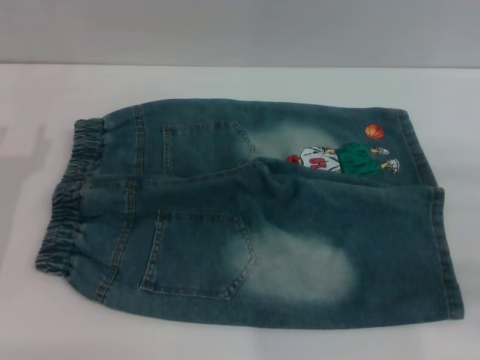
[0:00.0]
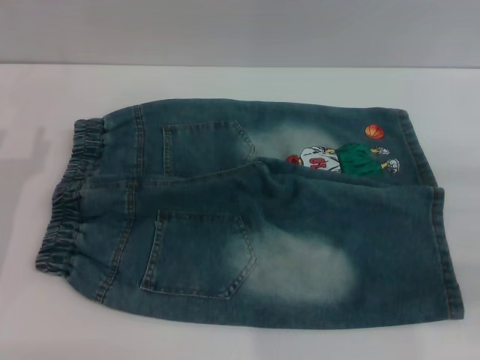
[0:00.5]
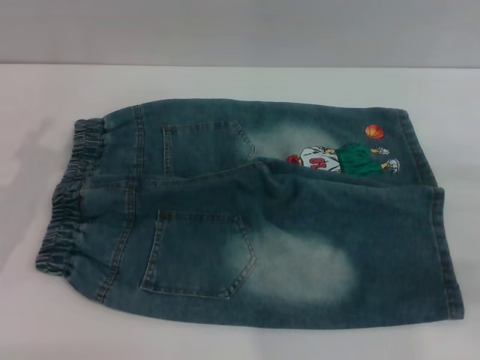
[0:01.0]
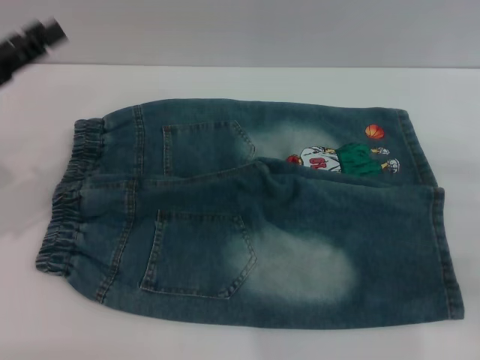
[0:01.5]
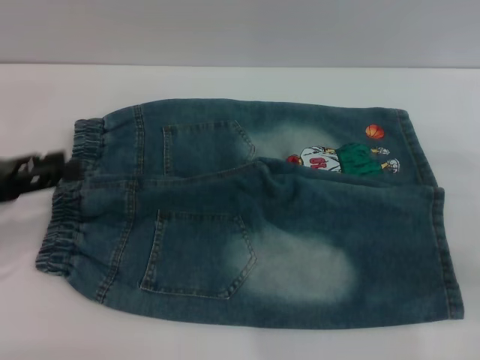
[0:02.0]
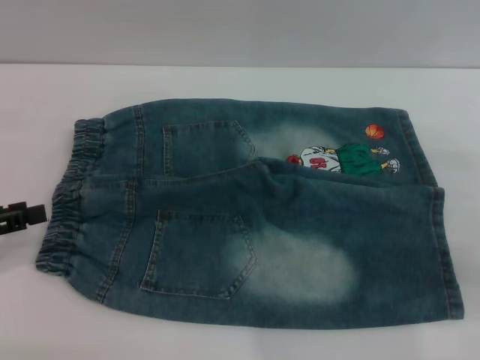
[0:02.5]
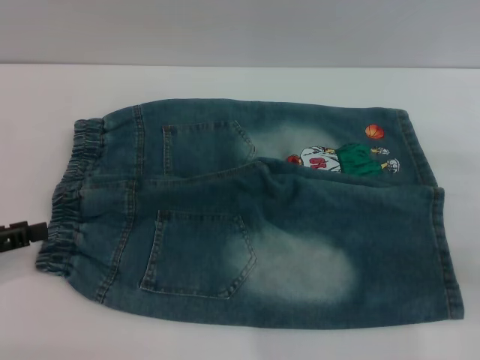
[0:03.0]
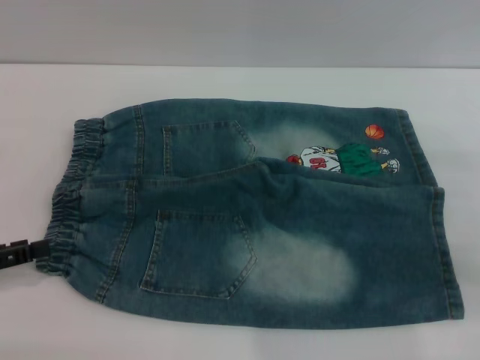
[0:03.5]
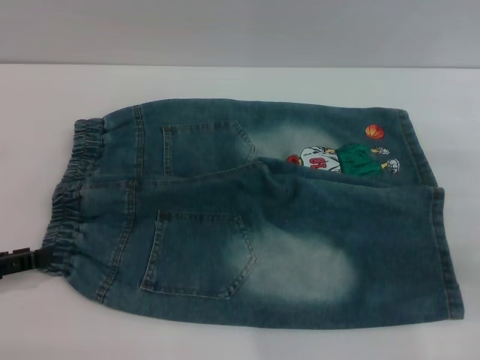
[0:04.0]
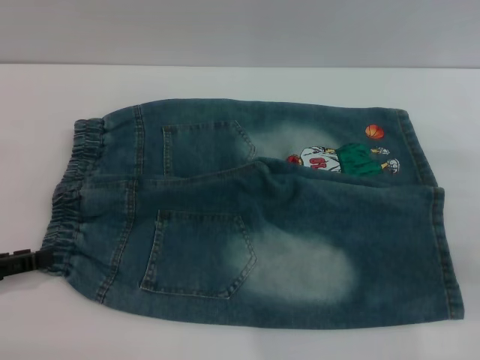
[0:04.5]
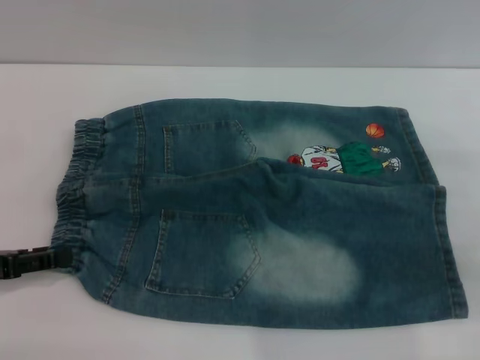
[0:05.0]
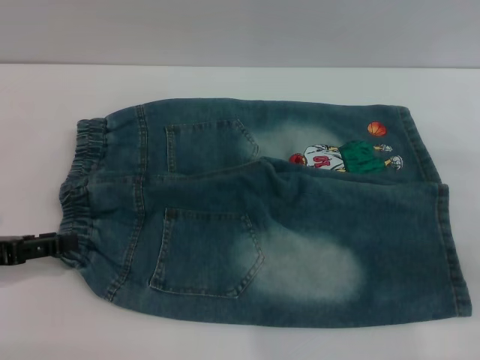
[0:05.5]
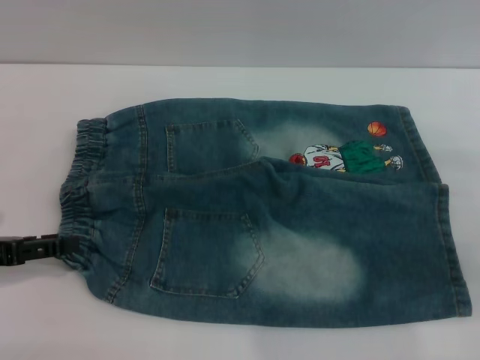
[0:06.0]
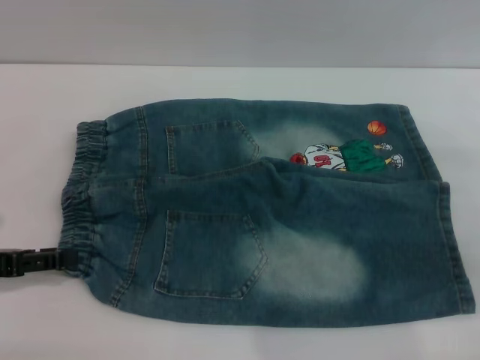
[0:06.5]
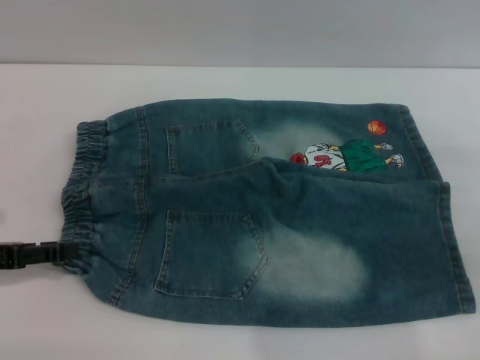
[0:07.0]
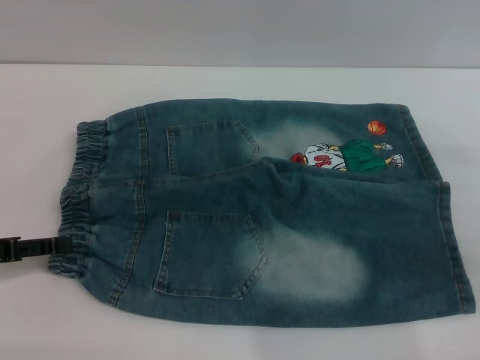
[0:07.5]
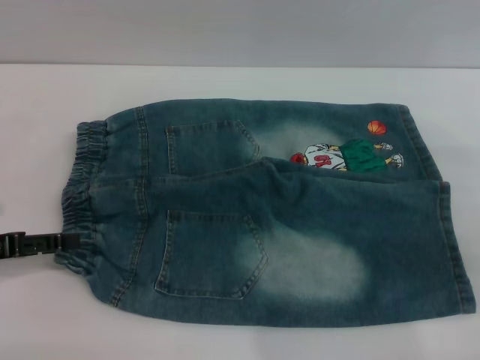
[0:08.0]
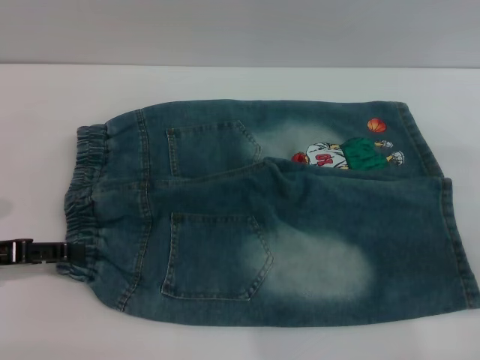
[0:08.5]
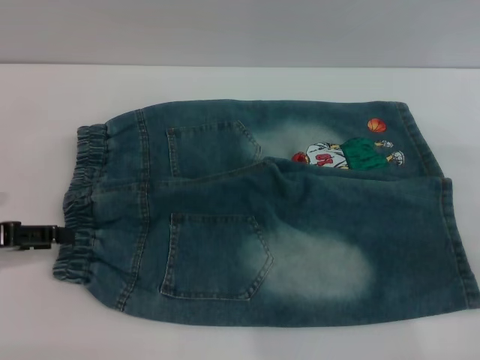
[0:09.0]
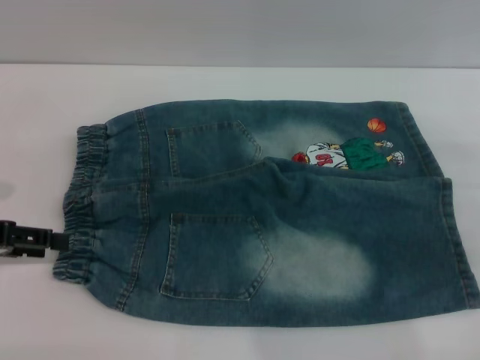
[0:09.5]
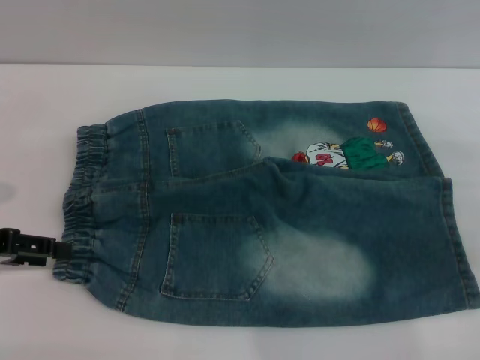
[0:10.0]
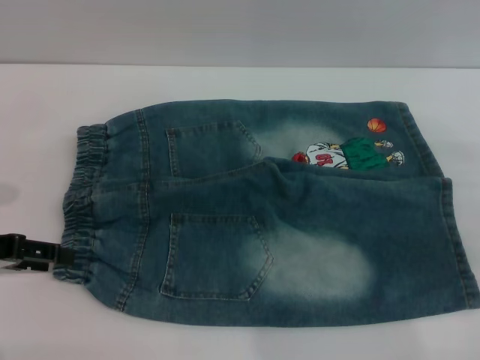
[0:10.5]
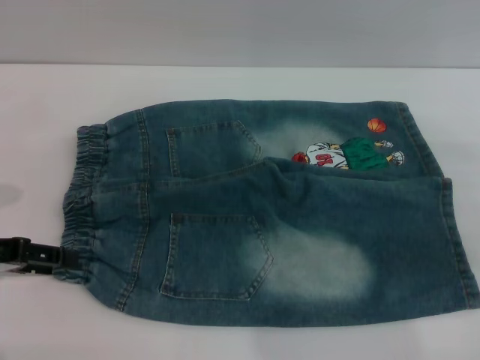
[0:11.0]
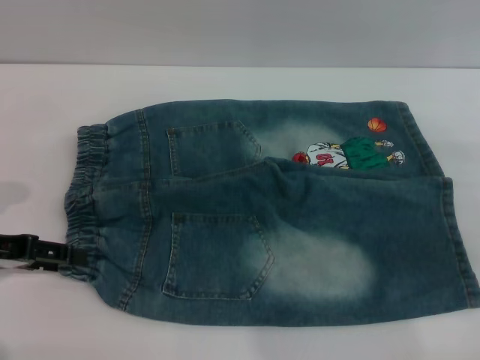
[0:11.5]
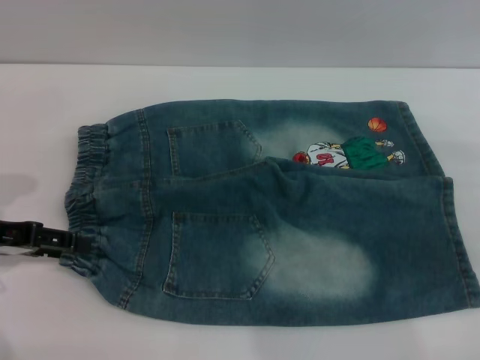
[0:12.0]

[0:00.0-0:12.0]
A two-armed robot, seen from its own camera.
0:00.0 to 0:02.0: The left gripper shifts by roughly 5 cm.
0:02.0 to 0:04.0: The left gripper is displaced downward by approximately 5 cm.
0:04.0 to 0:08.0: There are only small adjustments of the grippers.
0:08.0 to 0:12.0: The grippers stay close to where they were, moving slightly.

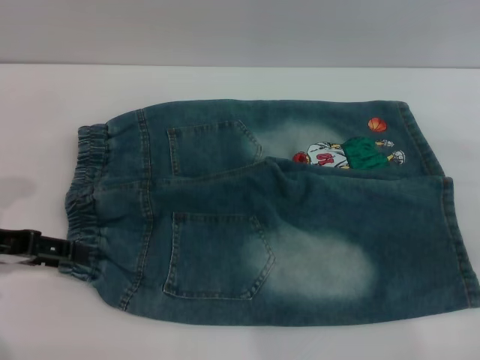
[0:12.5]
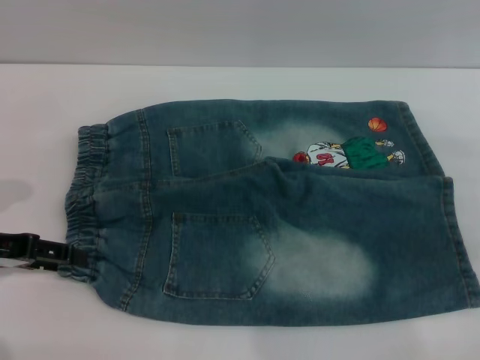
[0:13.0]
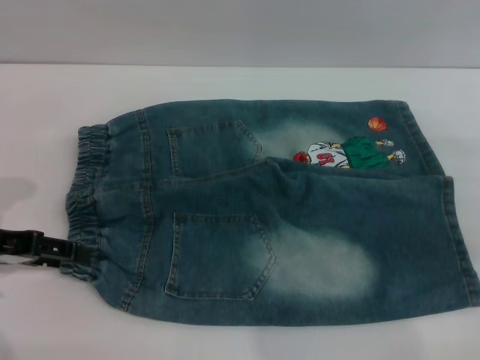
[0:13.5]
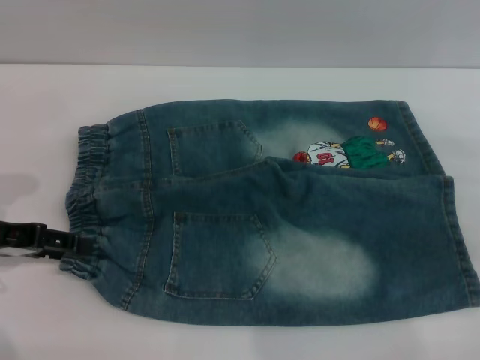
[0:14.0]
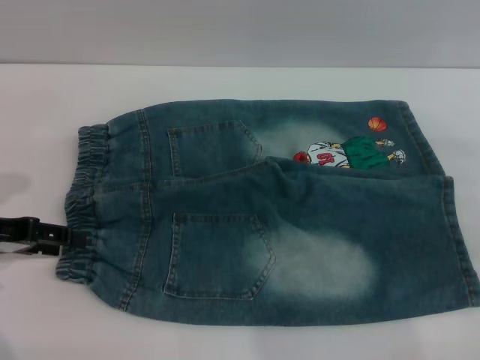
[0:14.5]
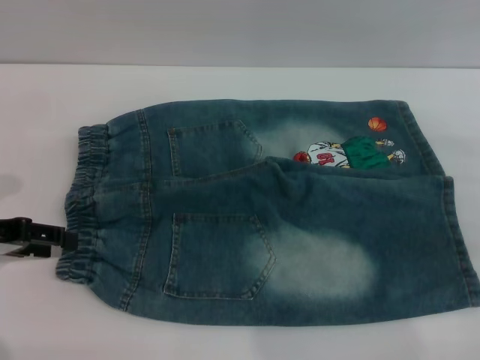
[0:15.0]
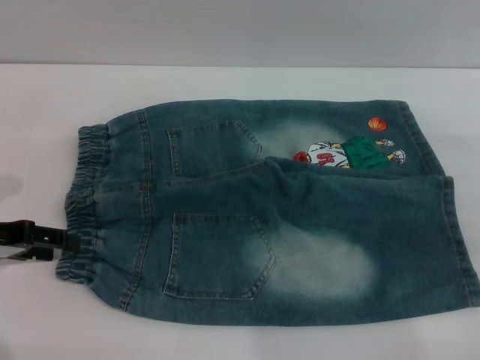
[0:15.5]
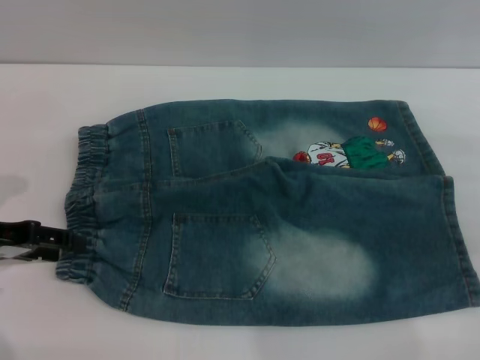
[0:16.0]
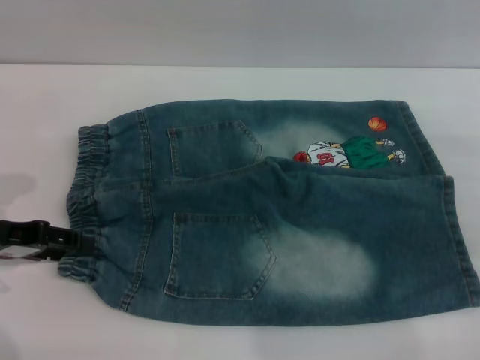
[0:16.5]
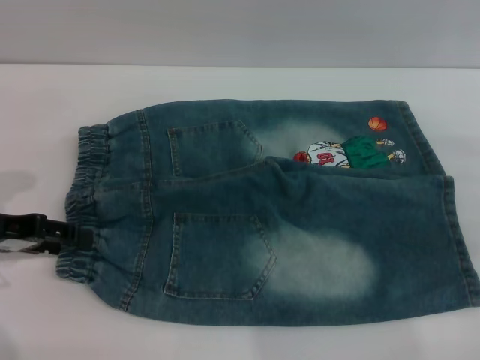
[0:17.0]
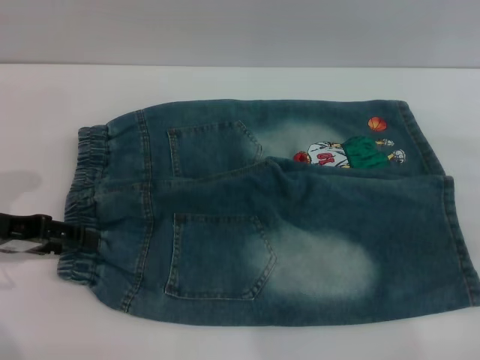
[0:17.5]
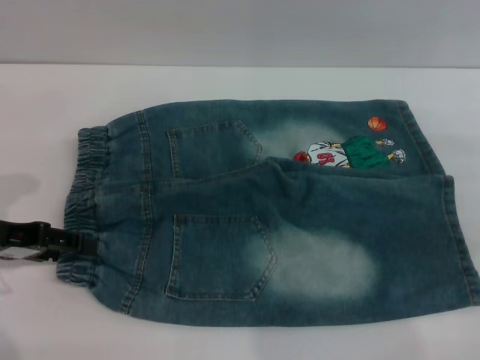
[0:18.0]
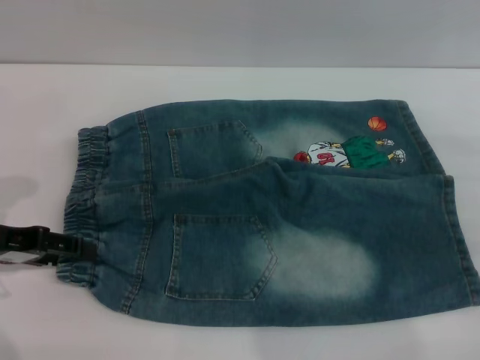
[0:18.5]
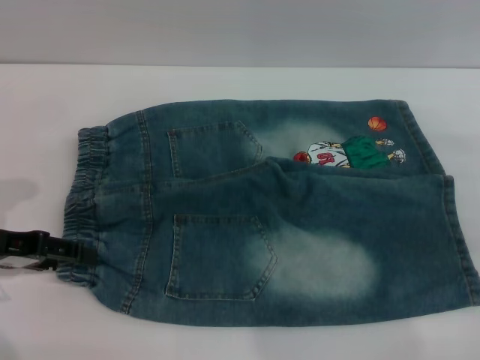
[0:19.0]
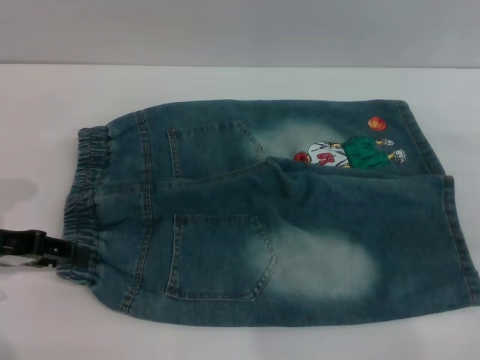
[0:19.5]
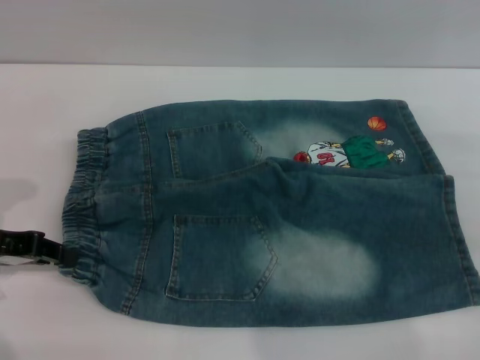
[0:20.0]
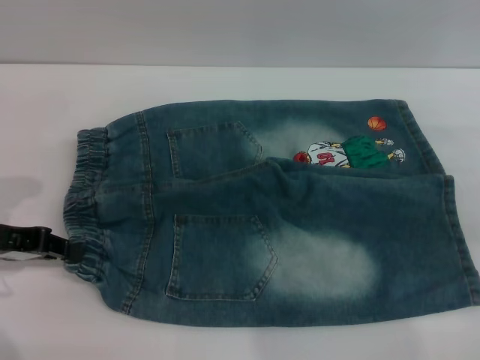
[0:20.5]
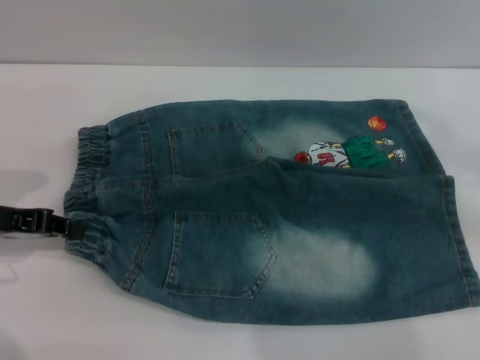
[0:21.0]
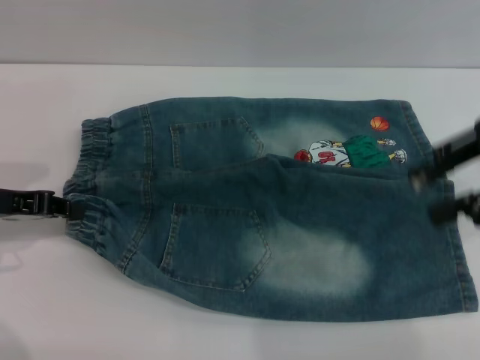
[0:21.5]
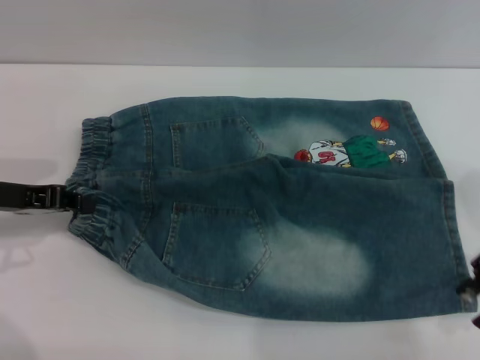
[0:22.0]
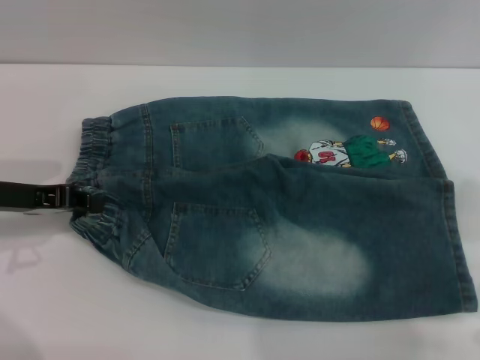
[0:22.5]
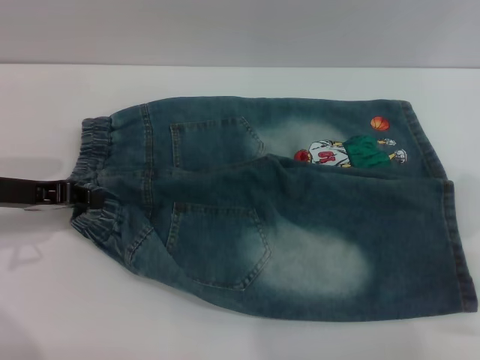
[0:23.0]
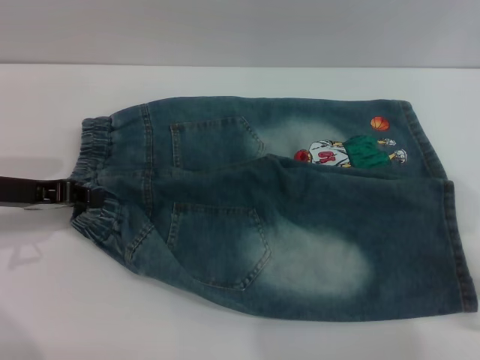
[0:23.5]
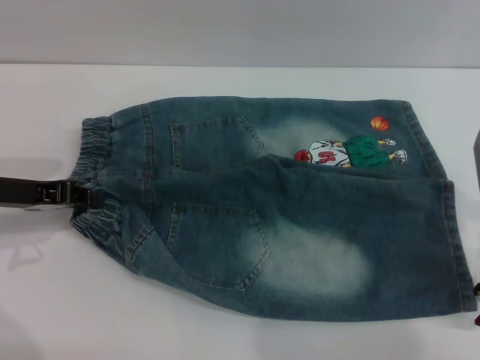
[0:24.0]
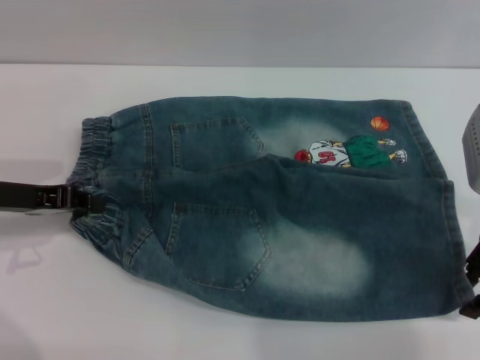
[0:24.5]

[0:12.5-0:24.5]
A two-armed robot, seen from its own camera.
0:12.5 to 0:14.5: Neither gripper changes place.
0:14.5 to 0:18.5: Both grippers stay put.
0:18.5 to 0:20.5: The left gripper closes up.
0:20.5 to 0:22.5: The right gripper goes some 5 cm to the left.
0:22.5 to 0:24.5: The right gripper shifts by some 5 cm.

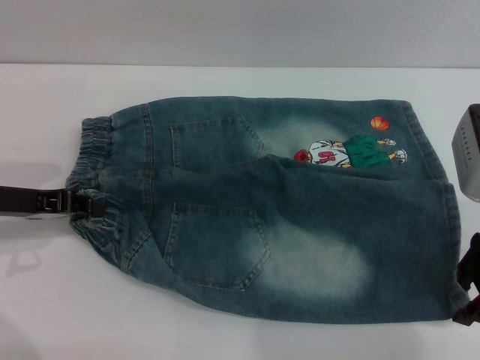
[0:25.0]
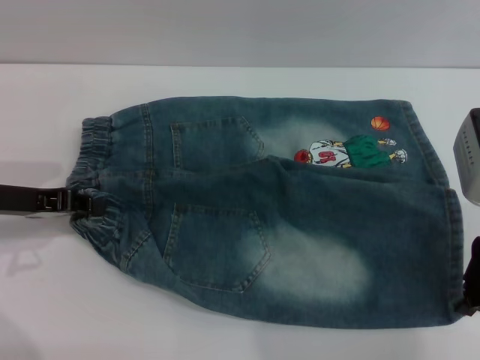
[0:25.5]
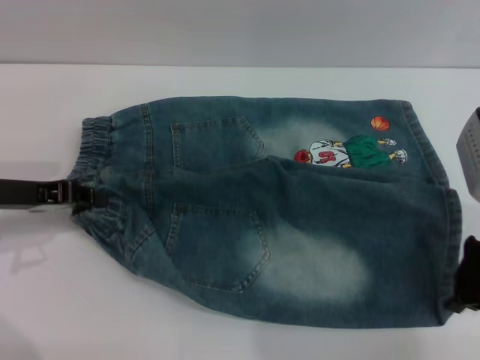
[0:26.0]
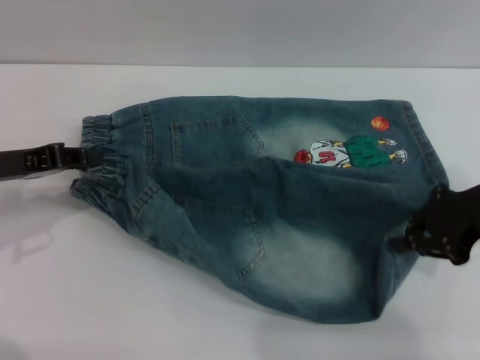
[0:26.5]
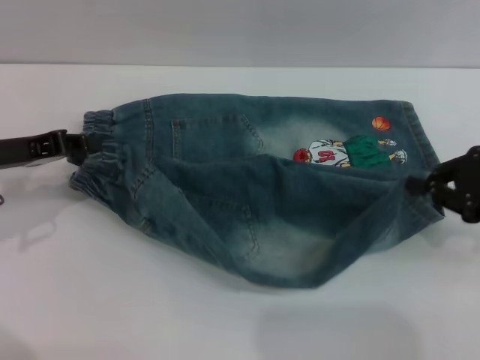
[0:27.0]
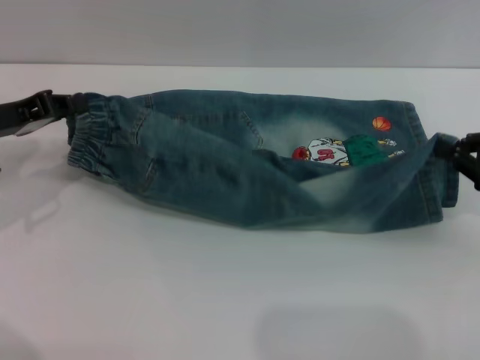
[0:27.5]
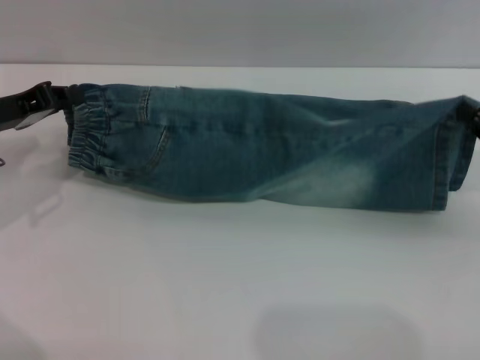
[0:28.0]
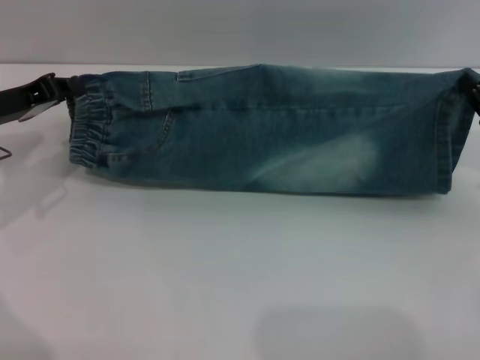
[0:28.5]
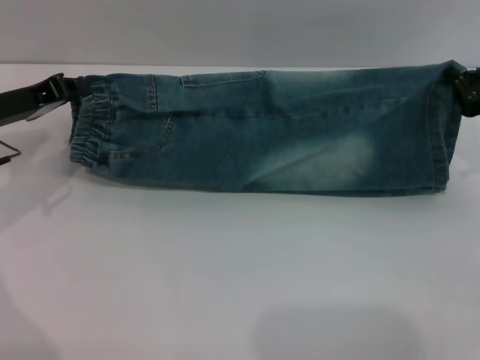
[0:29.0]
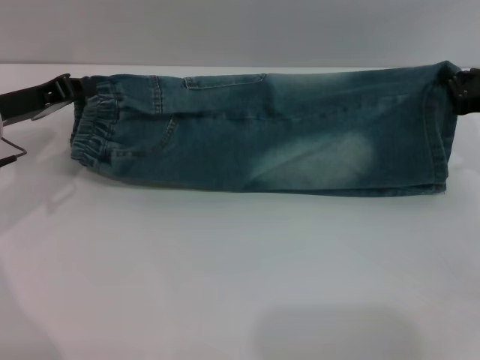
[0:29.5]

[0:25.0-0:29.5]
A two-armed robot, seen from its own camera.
0:25.0 to 0:27.0: The right gripper heads to the right, covering approximately 5 cm, and closes its fingers.
0:27.0 to 0:29.5: The right gripper travels forward by roughly 5 cm.
